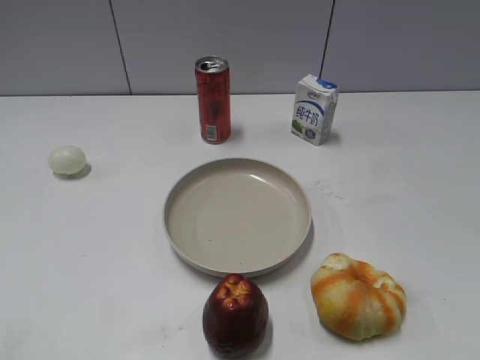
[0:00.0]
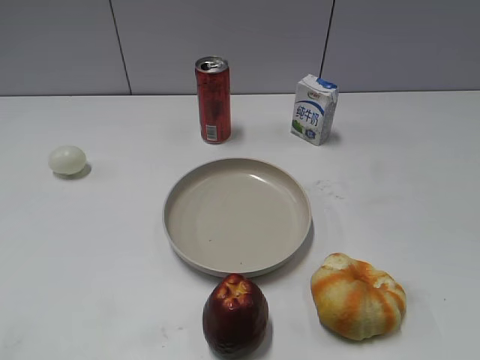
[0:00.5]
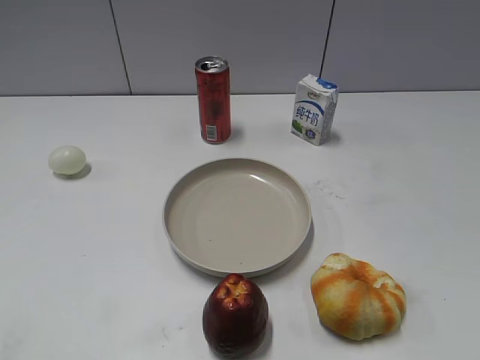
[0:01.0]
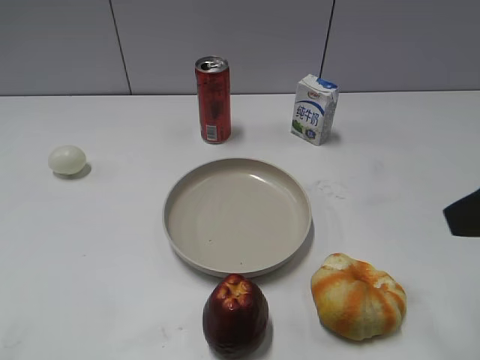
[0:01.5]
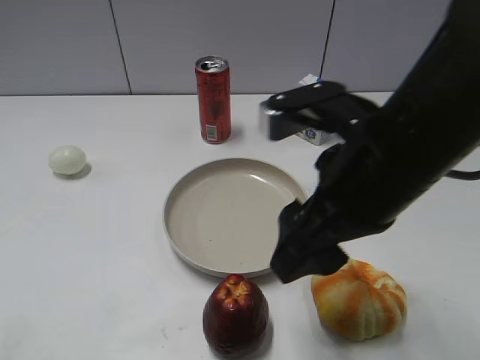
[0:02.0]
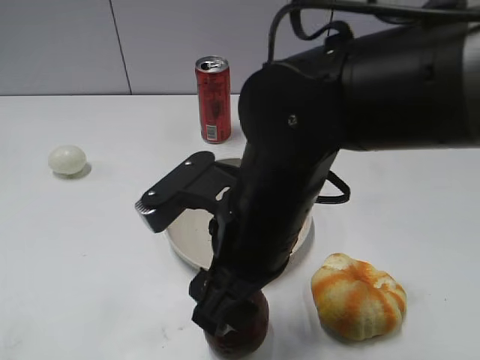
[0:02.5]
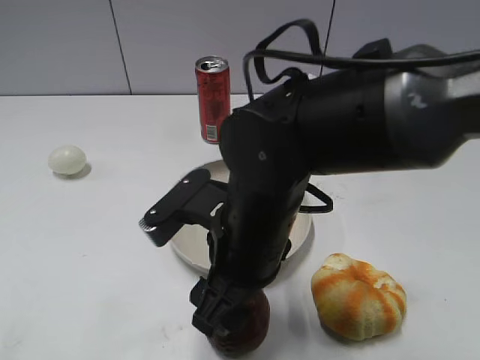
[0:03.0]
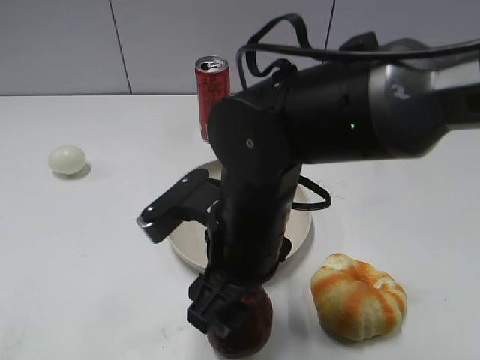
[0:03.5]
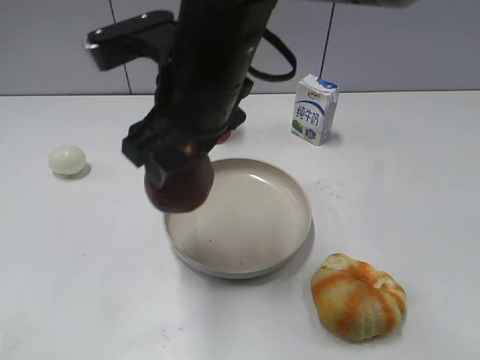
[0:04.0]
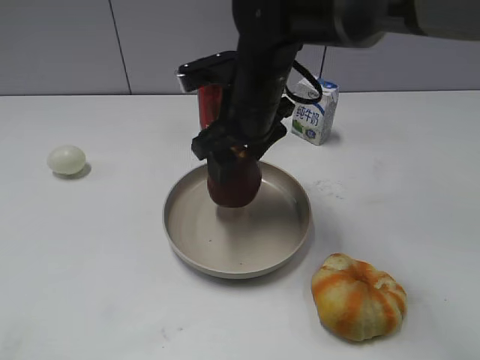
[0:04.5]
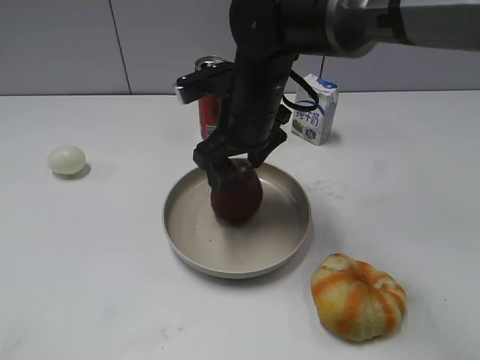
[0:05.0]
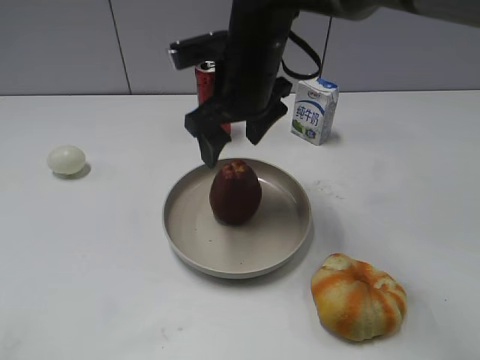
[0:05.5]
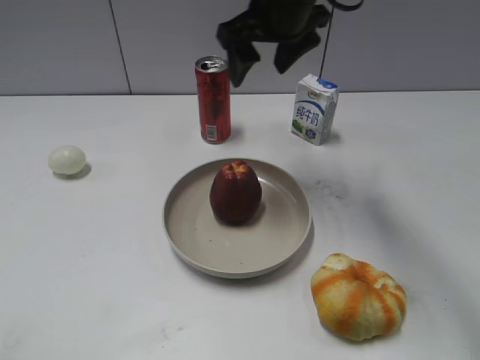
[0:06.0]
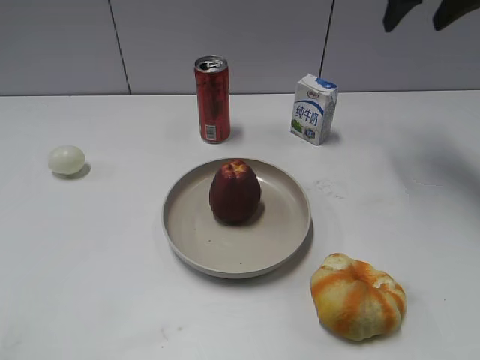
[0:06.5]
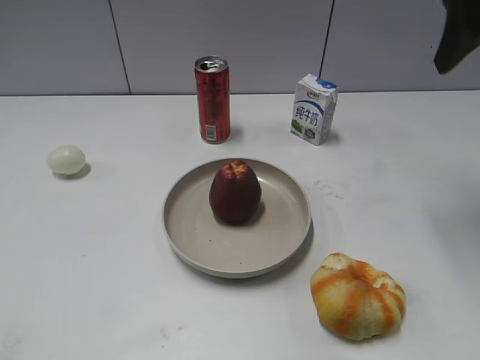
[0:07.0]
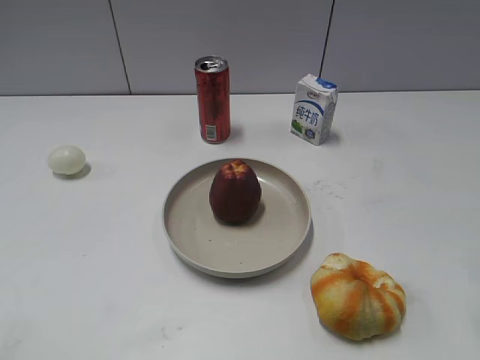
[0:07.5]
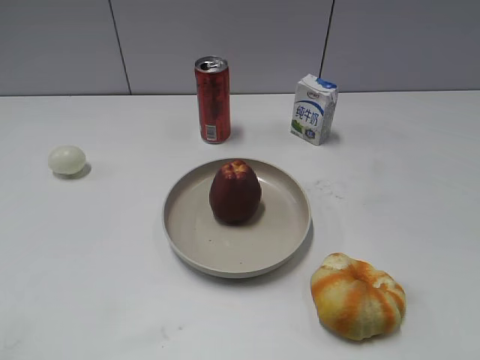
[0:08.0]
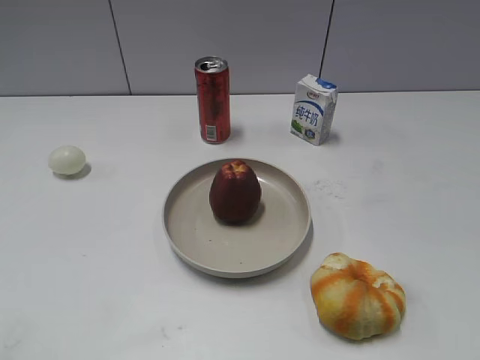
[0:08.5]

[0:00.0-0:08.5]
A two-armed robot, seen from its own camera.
Step, 0:01.5 to 0:03.0: Grasp the apple with right gripper.
Step, 0:04.0 to 0:05.5: Place the apple on the plate with right gripper.
0:02.0 to 0:04.0: The right gripper is displaced to the left and forward by some 15 cm, and closes up.
0:04.0 to 0:06.5: The right gripper goes approximately 30 cm to the right and forward, and opens.
0:06.5 to 0:08.5: The right gripper moves backward, roughly 40 cm.
